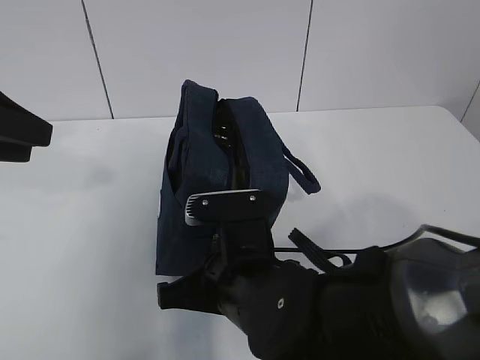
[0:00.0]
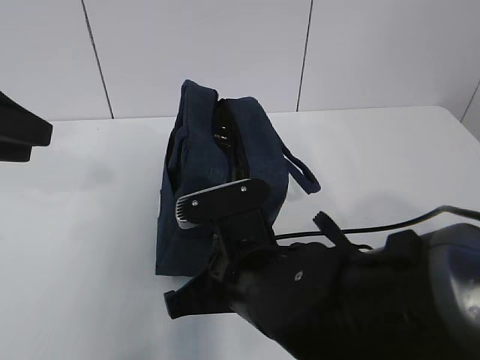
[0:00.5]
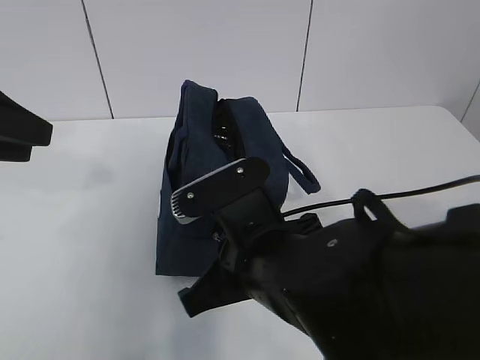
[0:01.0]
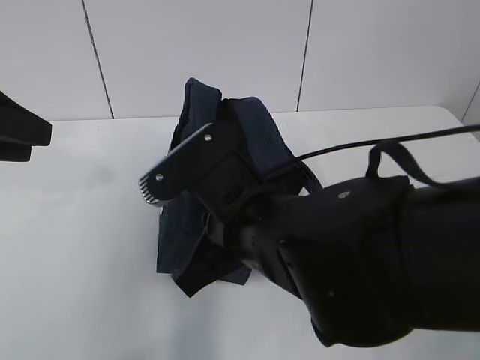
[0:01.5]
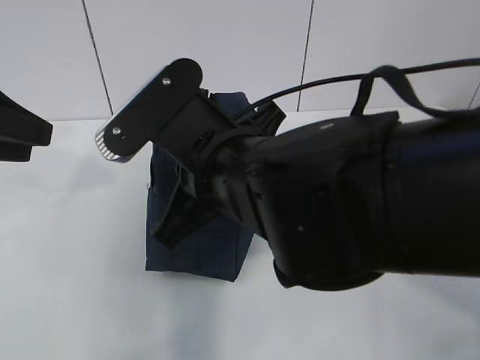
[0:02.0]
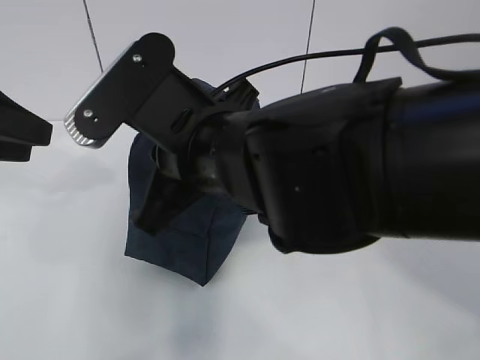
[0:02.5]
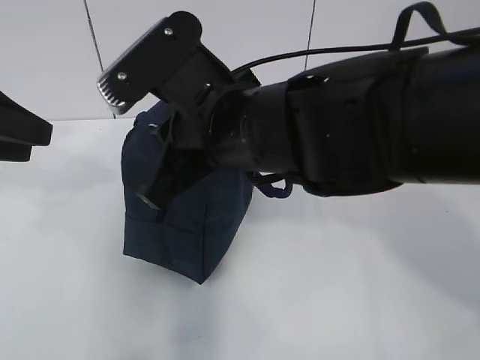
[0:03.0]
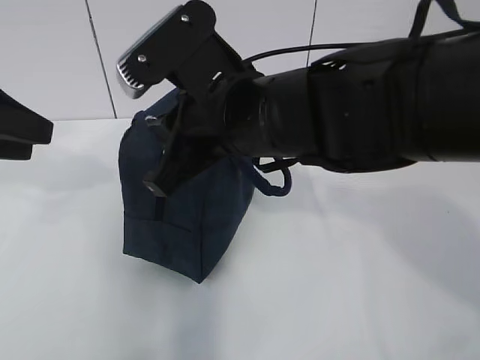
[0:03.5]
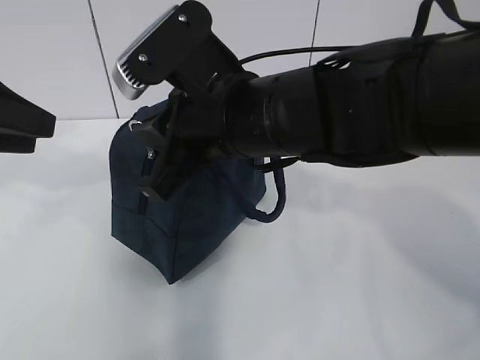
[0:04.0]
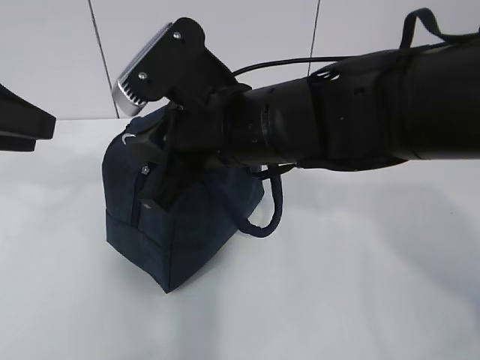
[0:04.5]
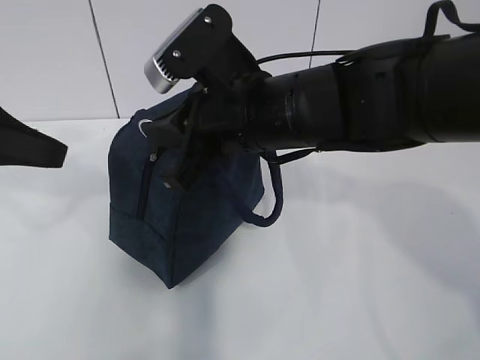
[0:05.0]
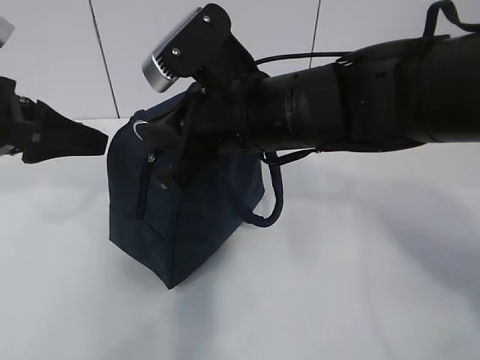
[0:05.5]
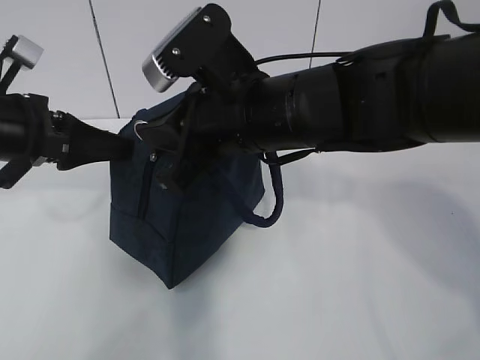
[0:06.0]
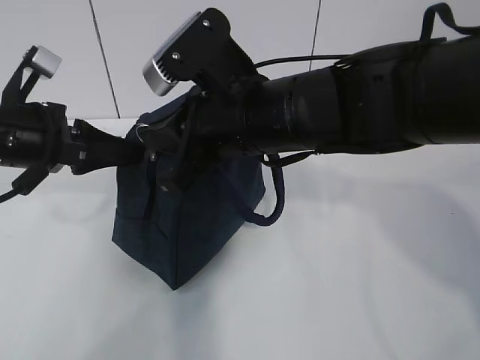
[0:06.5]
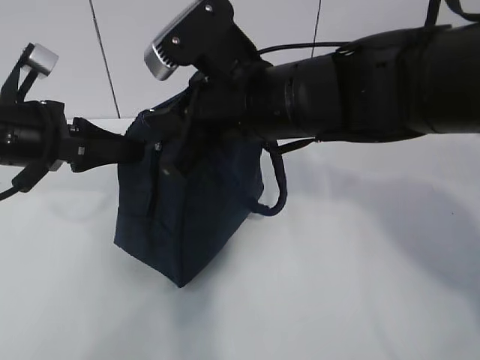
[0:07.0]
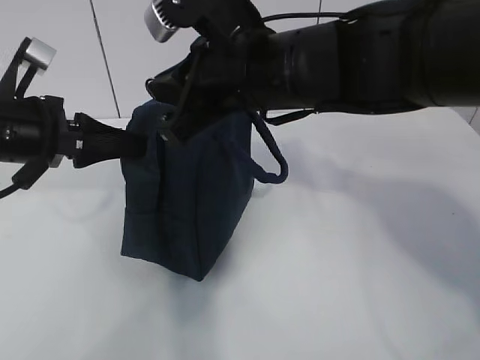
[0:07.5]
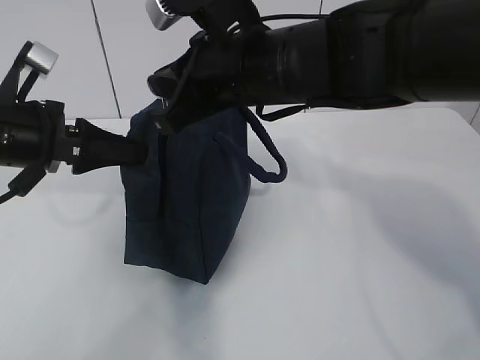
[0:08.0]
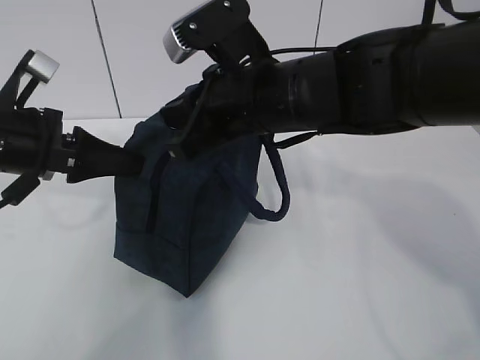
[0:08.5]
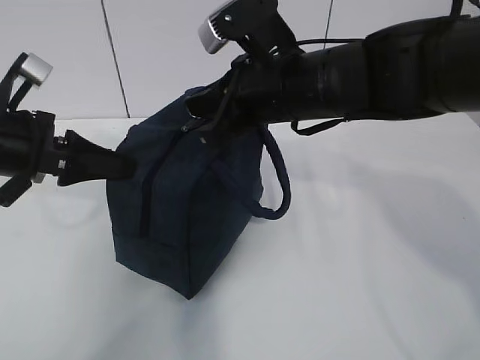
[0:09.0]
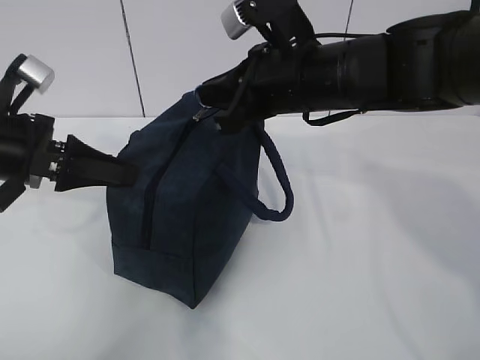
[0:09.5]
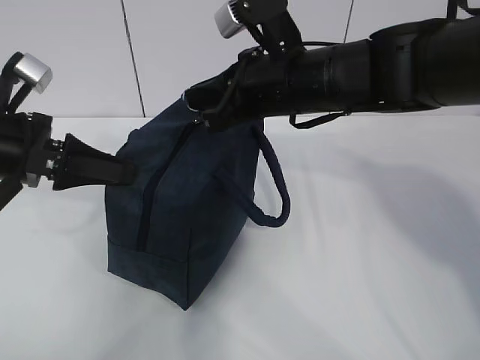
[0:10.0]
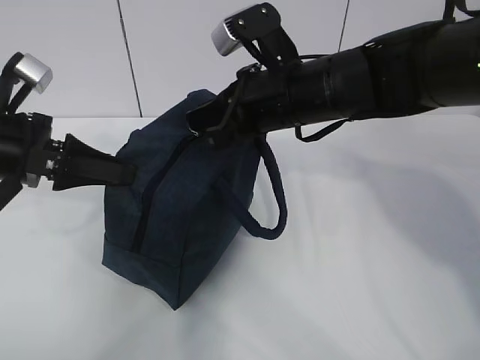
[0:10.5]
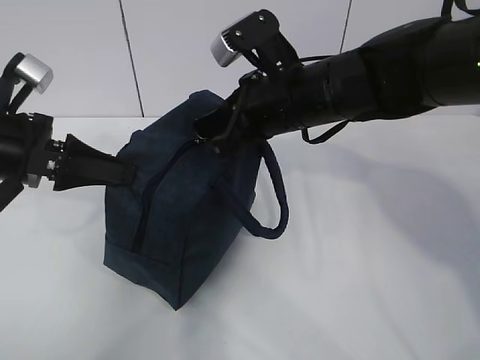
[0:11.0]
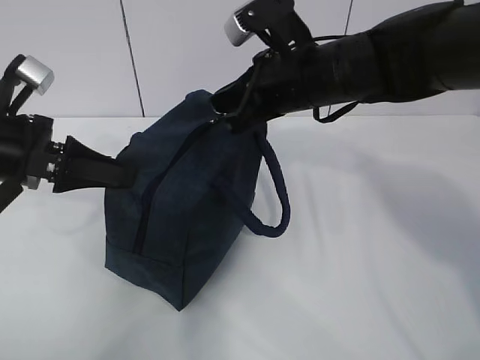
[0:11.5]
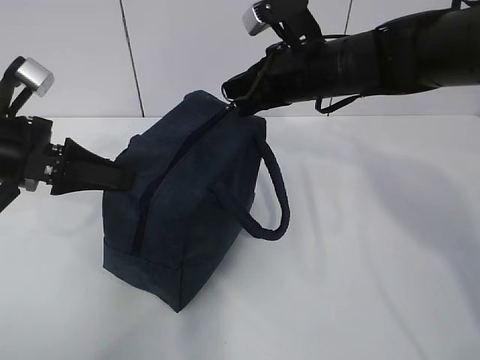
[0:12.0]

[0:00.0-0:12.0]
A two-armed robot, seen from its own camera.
Step, 0:02.5 to 0:06.0: Pull the zipper with your right hand.
0:00.0 to 0:02.0: The right gripper heads upward, covering some 10 cm.
0:04.0 to 0:06.0: The left gripper shifts approximately 10 cm downward and forward.
0:06.0 to 0:08.0: The left gripper closes up.
0:08.0 to 0:10.0: The right gripper moves about 5 cm.
0:10.0 to 0:12.0: The right gripper moves roughly 5 cm.

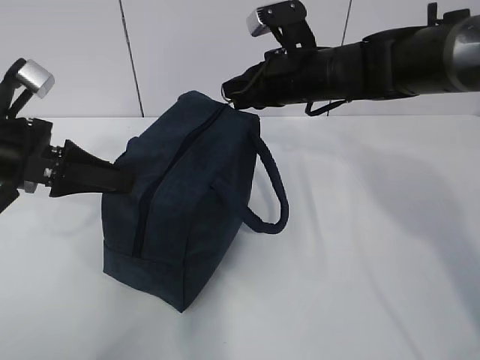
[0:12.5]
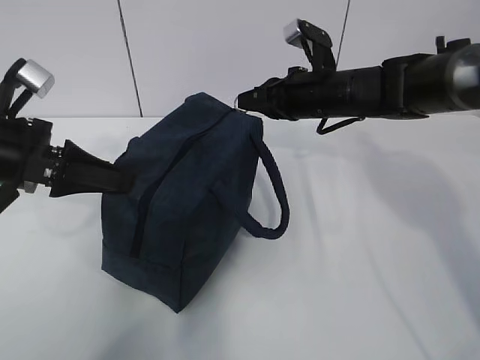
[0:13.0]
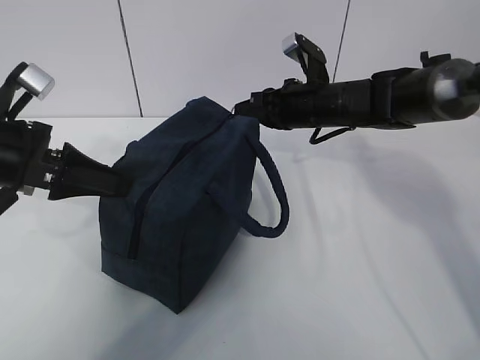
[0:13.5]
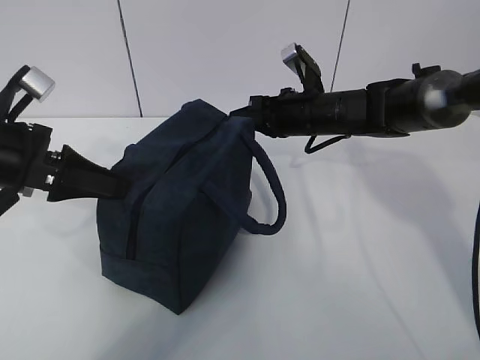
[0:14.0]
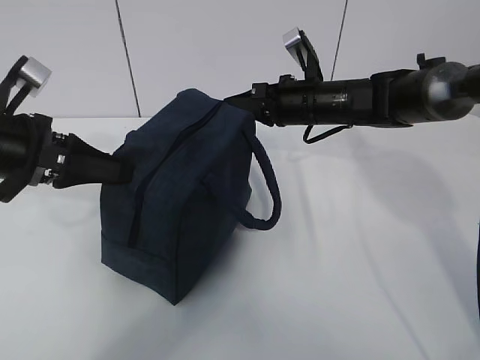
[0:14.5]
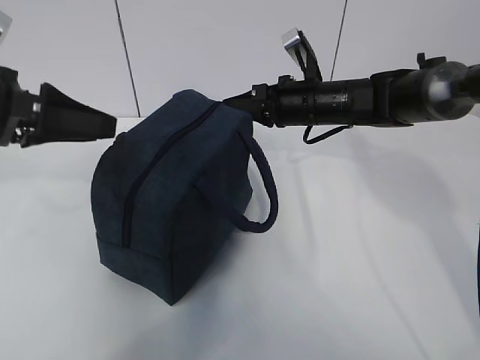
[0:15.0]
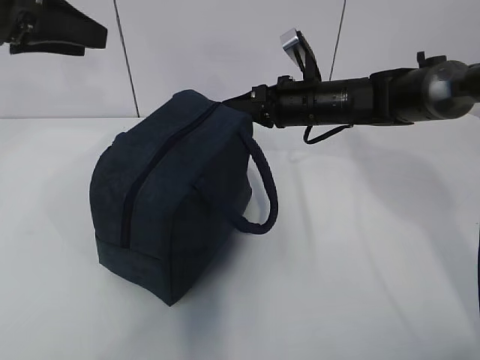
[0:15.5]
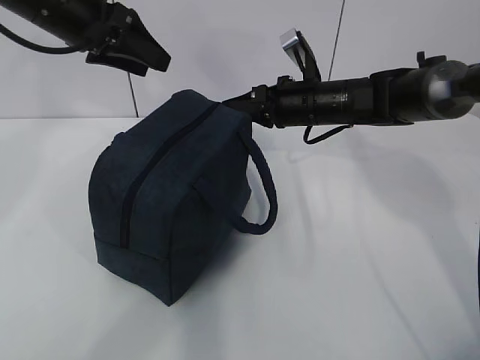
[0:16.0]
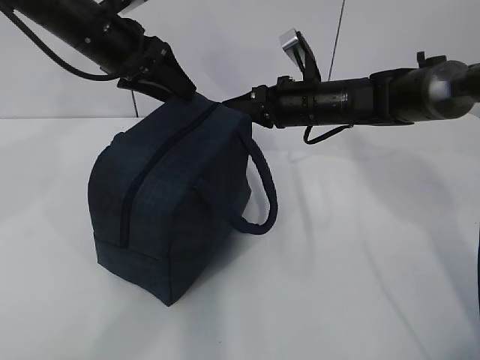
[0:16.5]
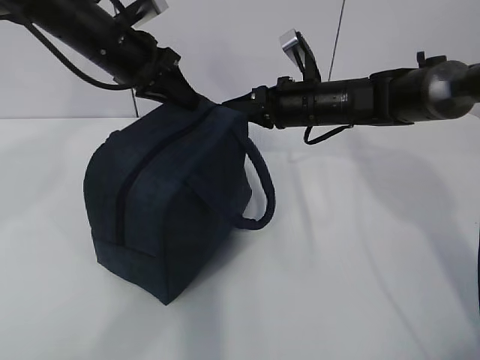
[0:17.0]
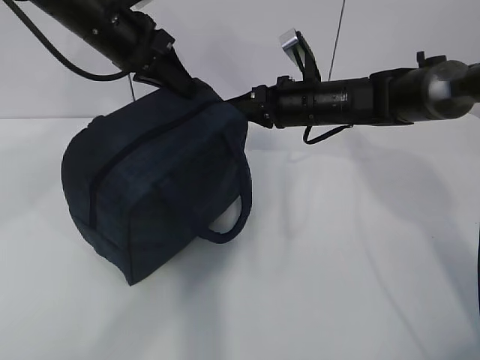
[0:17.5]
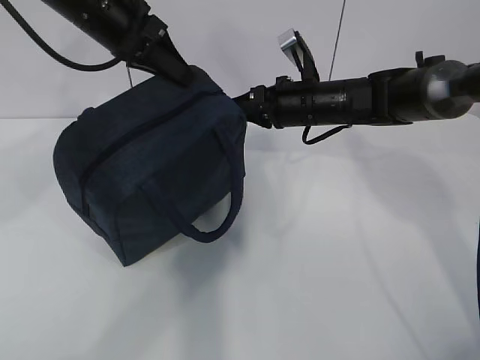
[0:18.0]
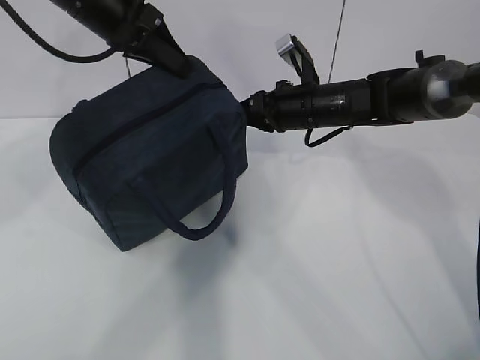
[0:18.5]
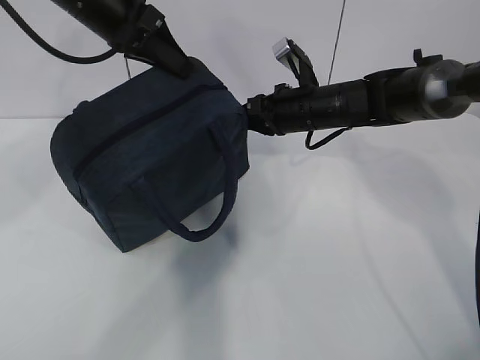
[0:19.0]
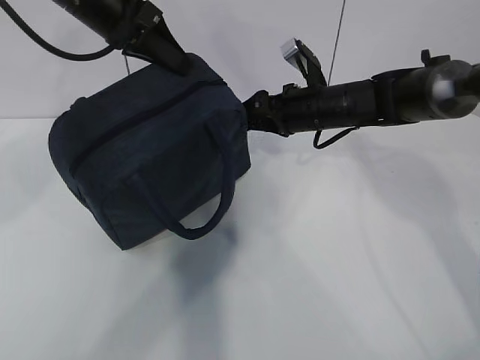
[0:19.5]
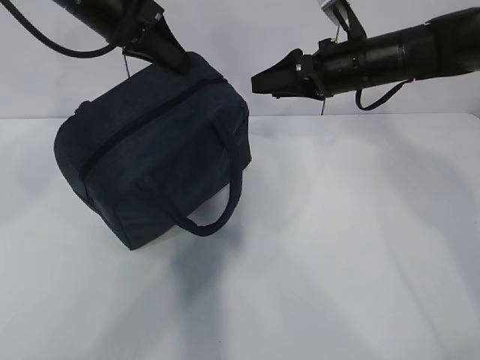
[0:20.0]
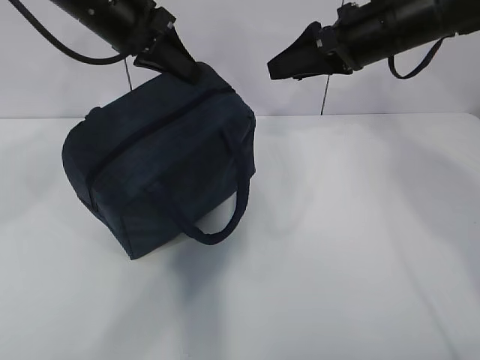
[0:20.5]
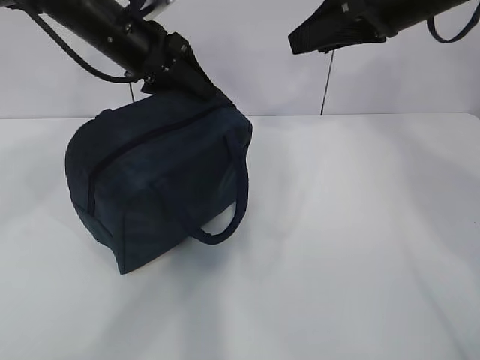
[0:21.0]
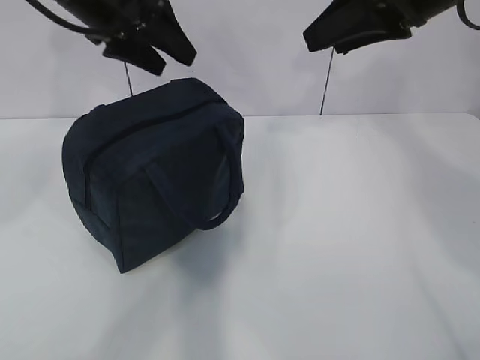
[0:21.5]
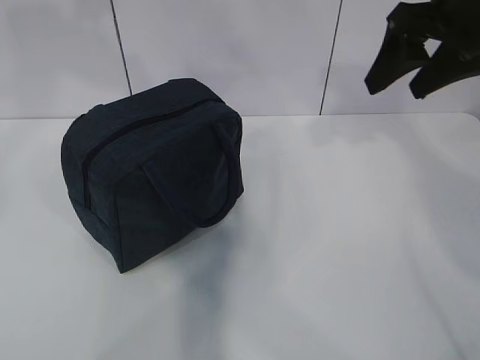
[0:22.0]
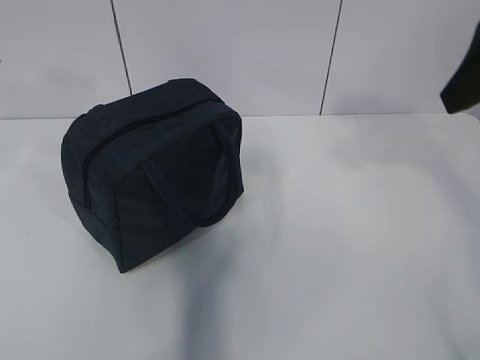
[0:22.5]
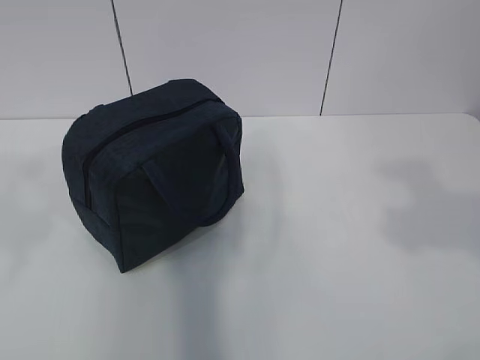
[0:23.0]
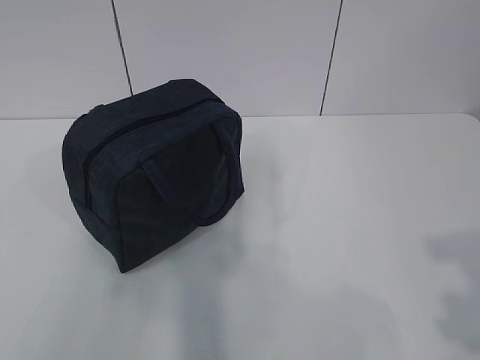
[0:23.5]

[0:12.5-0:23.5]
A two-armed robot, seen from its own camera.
0:12.5 to 0:14.5: The right gripper is displaced downward by about 5 cm, while the left gripper opens.
0:14.5 to 0:16.0: The left gripper is displaced forward and upward by some 15 cm, and opens.
0:16.0 to 0:18.0: The left gripper closes up.
0:18.0 to 0:20.0: The right gripper goes about 5 cm upward, and opens up.
0:20.0 to 0:21.5: The right gripper travels upward and backward by about 15 cm. The left gripper opens its fingers.
0:21.5 to 0:23.5: The grippers both shift backward by roughly 35 cm.

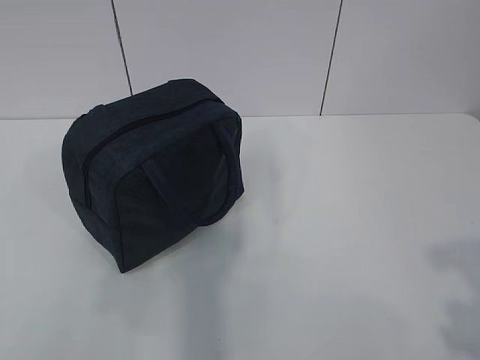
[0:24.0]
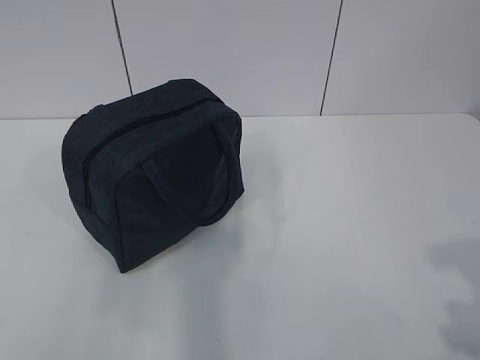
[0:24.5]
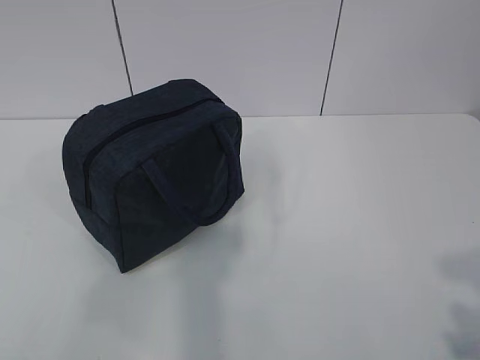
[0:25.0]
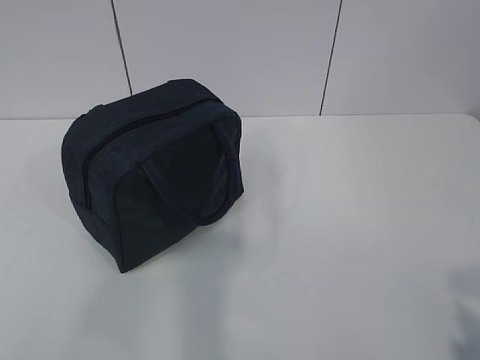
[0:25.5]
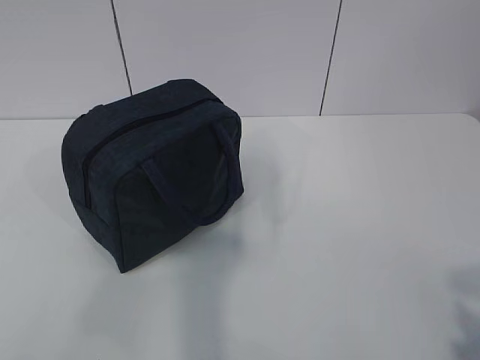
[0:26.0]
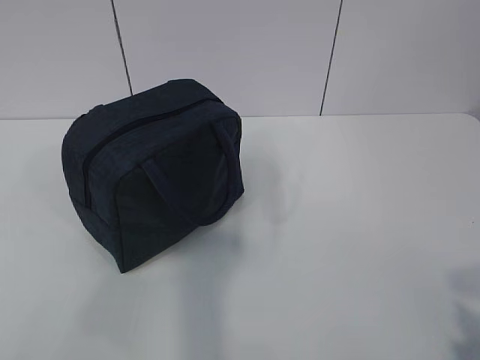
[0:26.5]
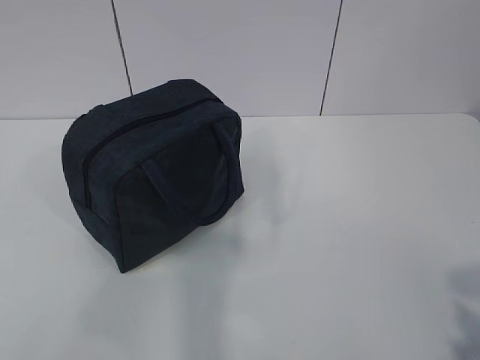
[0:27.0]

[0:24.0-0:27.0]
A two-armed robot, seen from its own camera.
0:25.5 to 0:27.0: Both grippers stay put.
